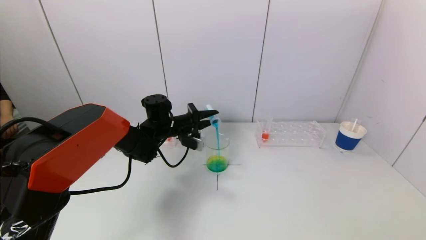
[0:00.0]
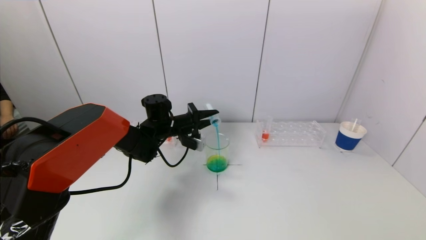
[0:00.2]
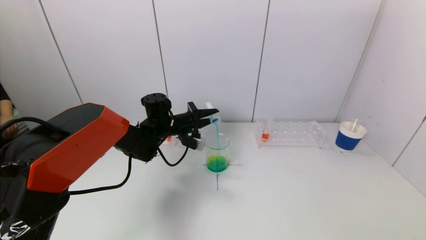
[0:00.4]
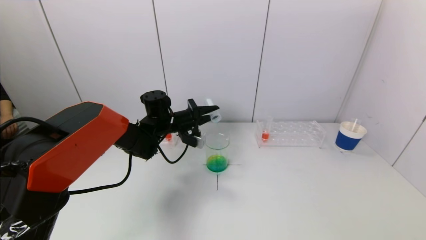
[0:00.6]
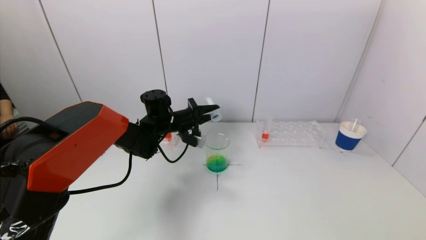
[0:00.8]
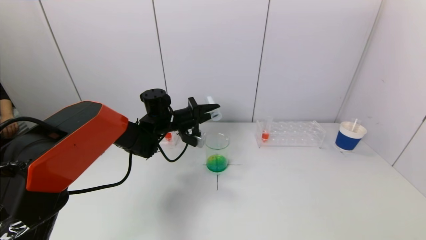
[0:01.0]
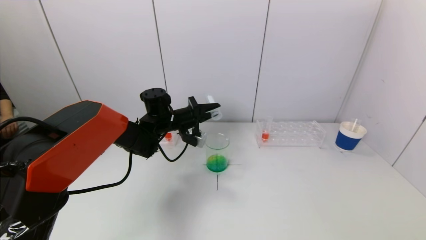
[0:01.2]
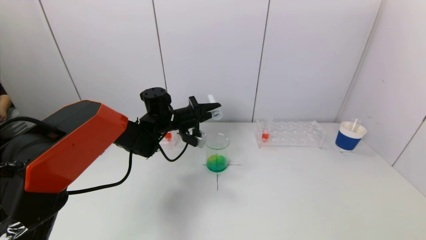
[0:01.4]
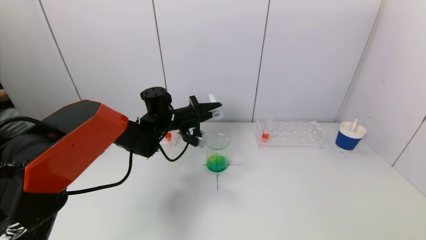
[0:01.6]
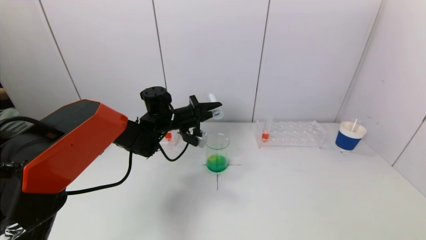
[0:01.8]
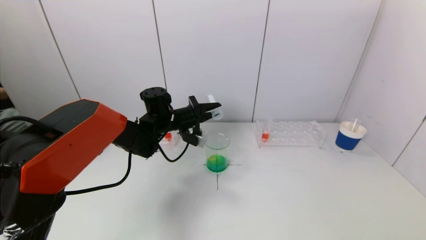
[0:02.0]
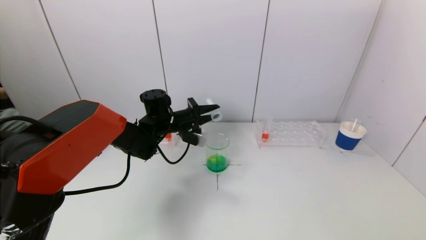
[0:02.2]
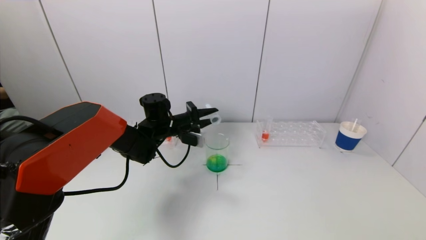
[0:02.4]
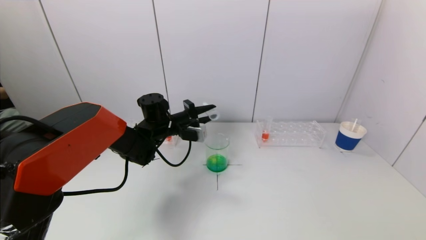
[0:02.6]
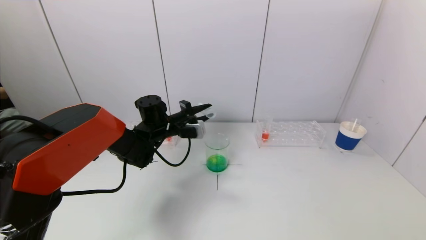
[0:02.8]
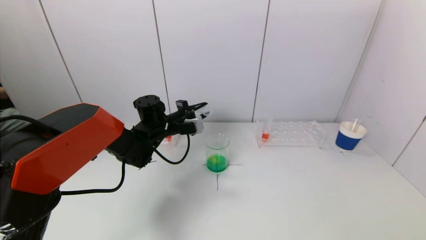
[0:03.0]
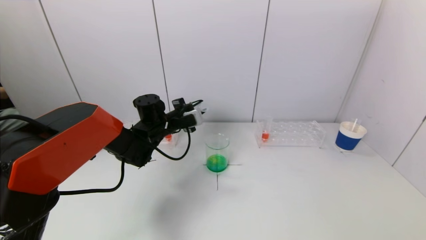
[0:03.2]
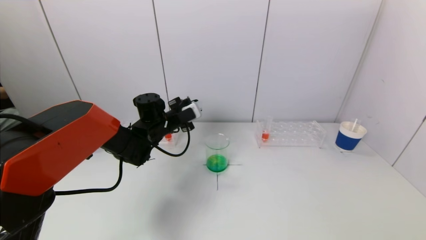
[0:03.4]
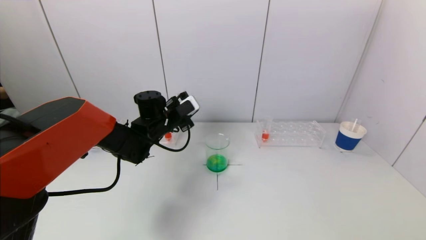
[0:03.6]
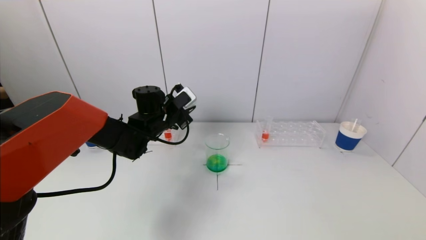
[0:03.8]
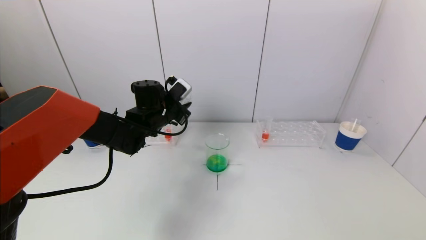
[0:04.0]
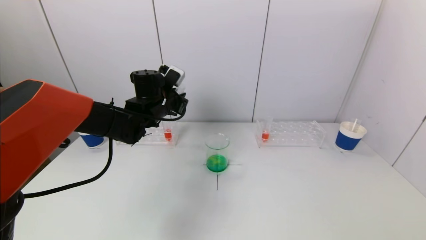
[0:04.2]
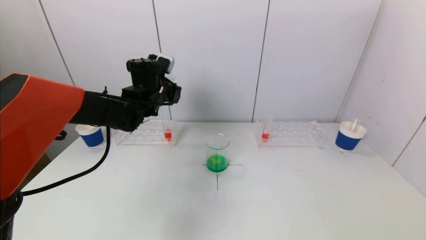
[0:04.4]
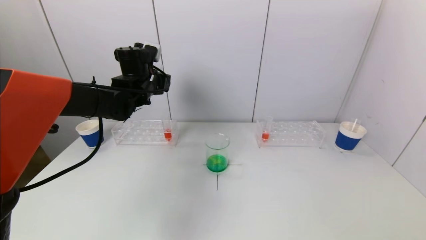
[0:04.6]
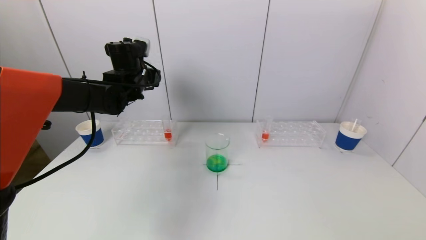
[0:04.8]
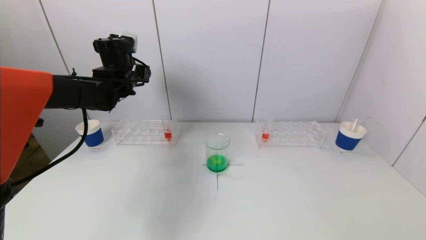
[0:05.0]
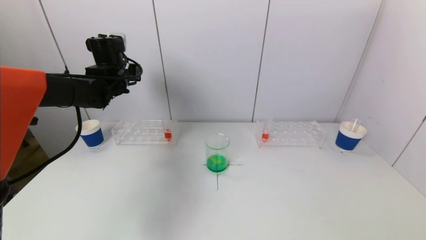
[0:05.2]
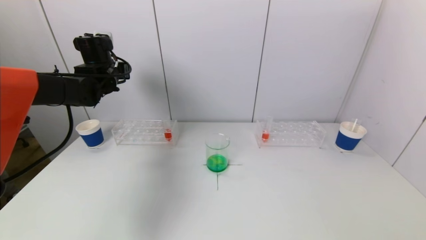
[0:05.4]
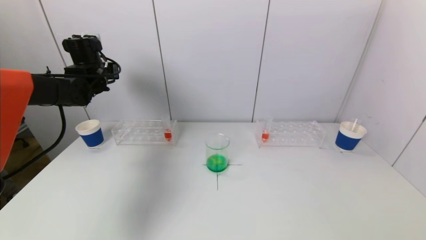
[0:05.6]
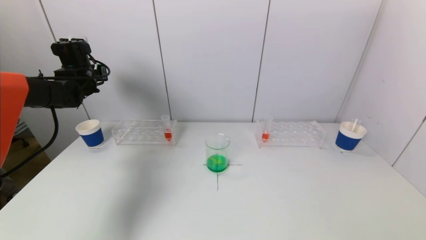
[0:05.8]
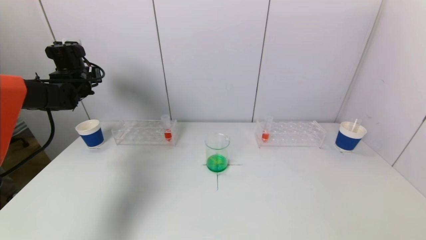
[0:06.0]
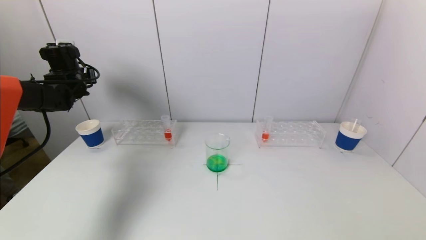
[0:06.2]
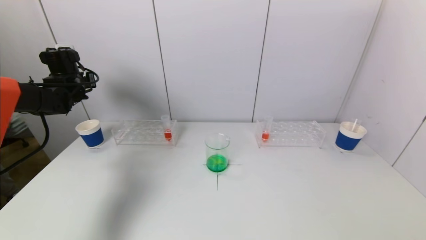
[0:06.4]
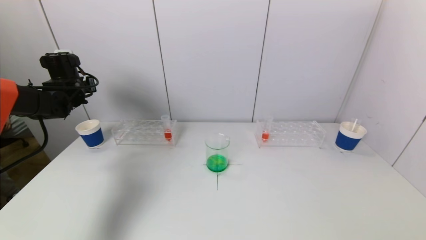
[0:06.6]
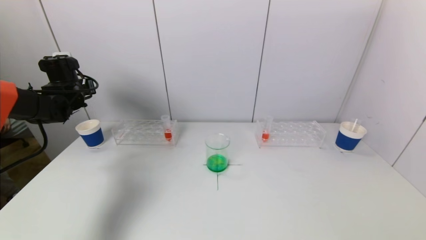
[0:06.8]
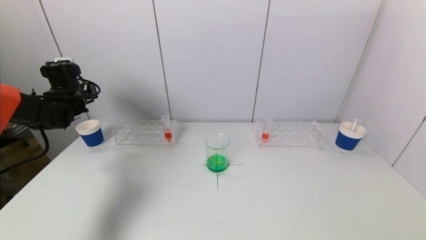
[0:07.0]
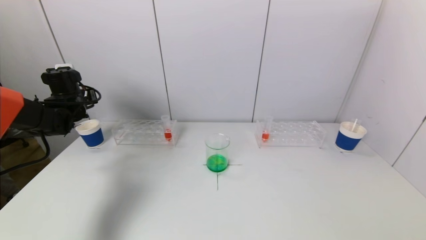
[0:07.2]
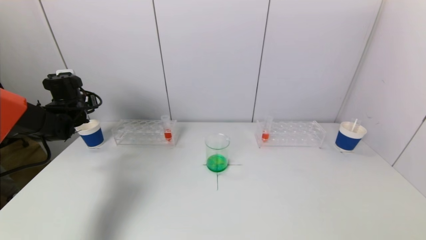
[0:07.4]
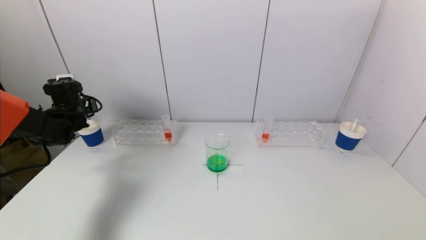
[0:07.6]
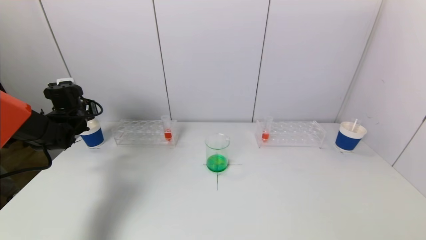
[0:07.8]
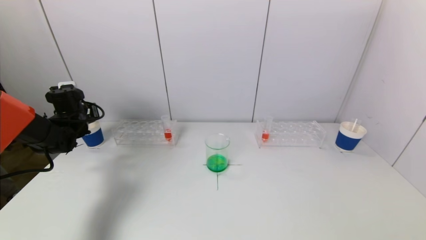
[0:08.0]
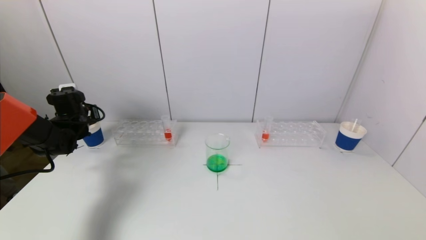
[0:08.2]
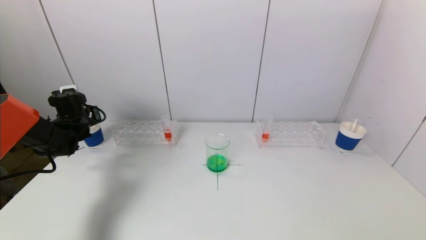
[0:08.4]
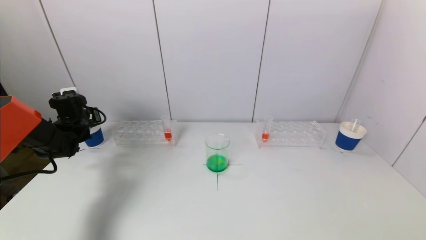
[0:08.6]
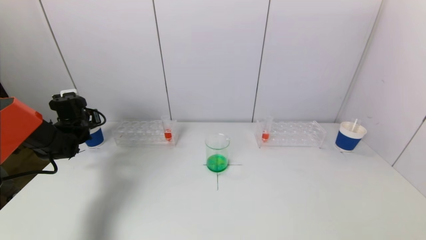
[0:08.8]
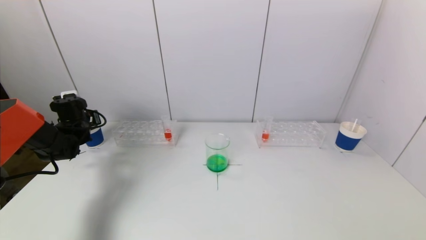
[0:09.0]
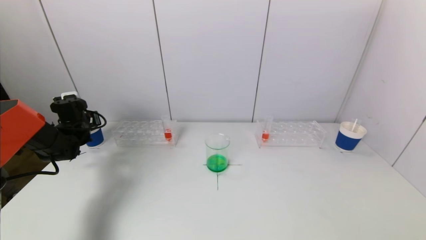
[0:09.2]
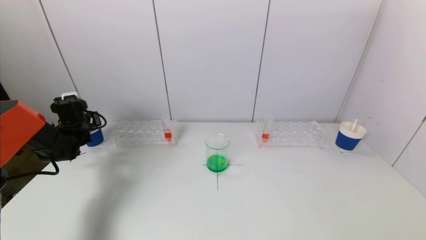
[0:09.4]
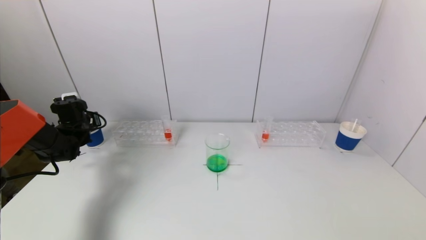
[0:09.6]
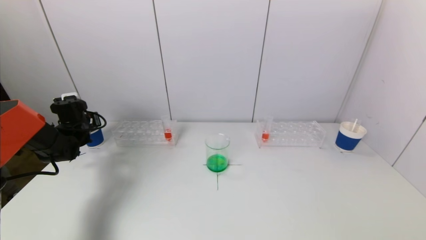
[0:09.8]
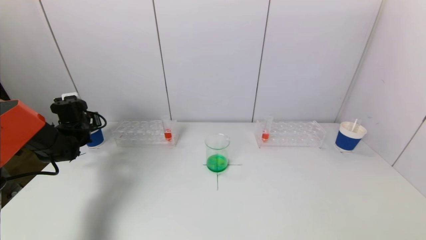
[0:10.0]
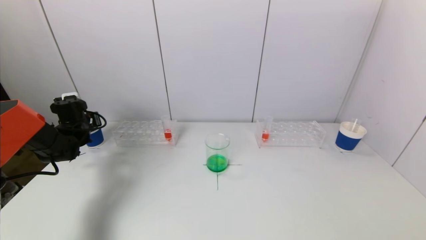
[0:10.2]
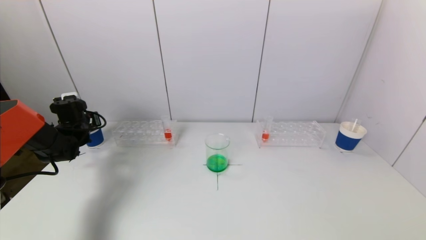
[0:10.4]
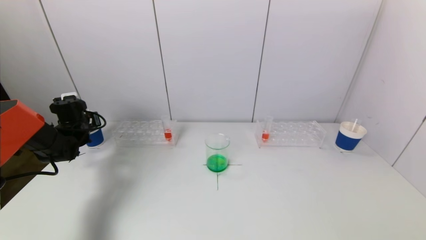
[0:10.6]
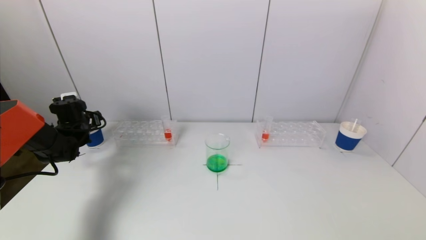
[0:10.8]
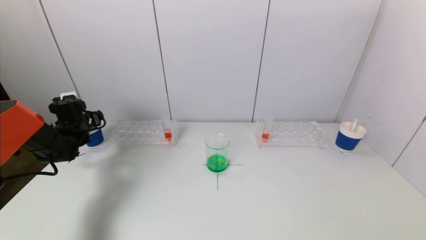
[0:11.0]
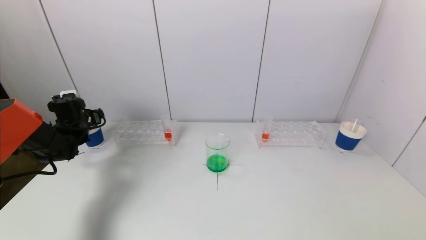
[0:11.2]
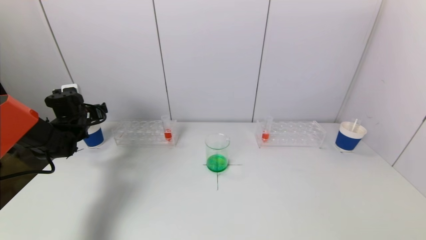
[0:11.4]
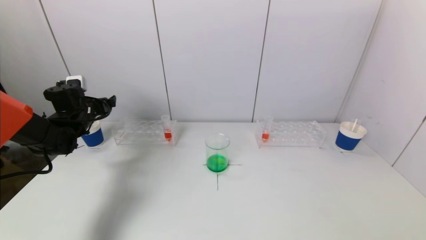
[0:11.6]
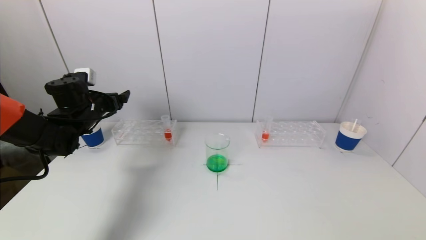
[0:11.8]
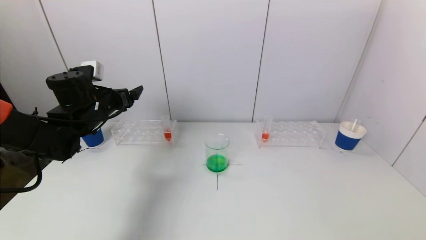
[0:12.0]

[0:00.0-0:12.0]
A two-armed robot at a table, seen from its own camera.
Task of the whole recording: pick up a test tube with pigment on left test tube rack and a test tube with pigment on right test tube rack by grippers and pour them into the beaker.
Step, 0:02.0 to 0:10.6: Place the test tube into the paper cup with the left gripper.
0:00.0 to 0:01.6: There are only small adjustments of the grippers.
0:03.0 to 0:04.4: The left gripper moves upward, about 10 cm.
0:04.4 to 0:06.0: The left gripper moves to the left, about 20 cm.
0:06.0 to 0:07.6: The left gripper moves downward, approximately 10 cm.
0:07.6 to 0:09.0: The grippers make only small movements.
0:09.0 to 0:10.4: The two grippers keep their place.
0:10.4 to 0:12.0: The left gripper heads to the right, upward and backward, covering some 15 cm, and opens its fingers.

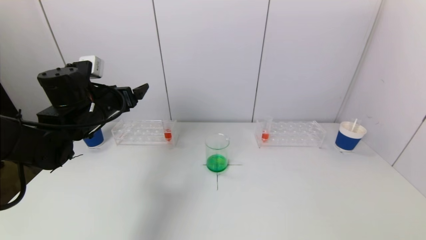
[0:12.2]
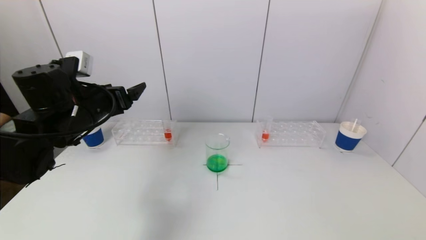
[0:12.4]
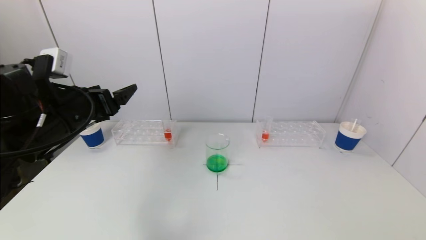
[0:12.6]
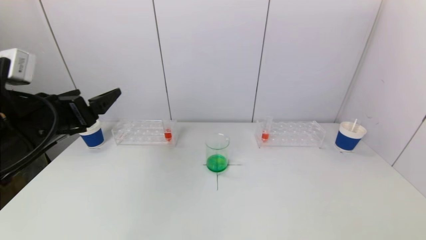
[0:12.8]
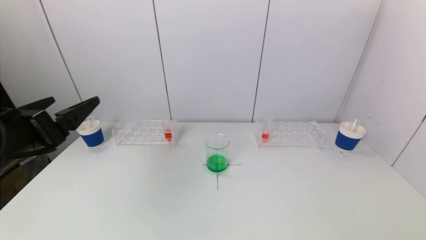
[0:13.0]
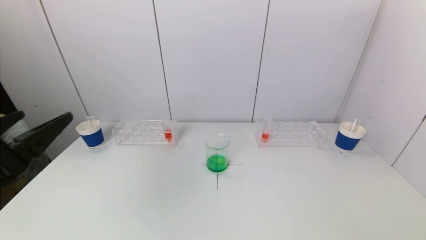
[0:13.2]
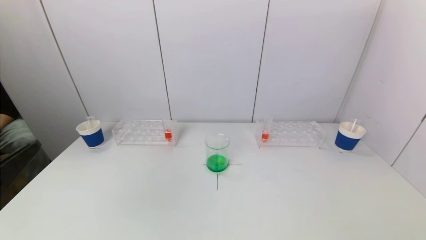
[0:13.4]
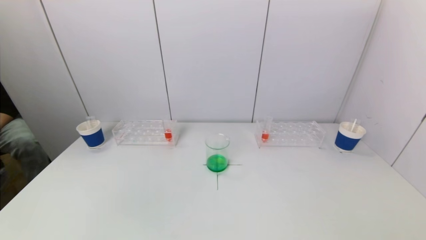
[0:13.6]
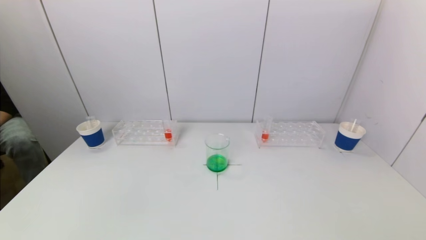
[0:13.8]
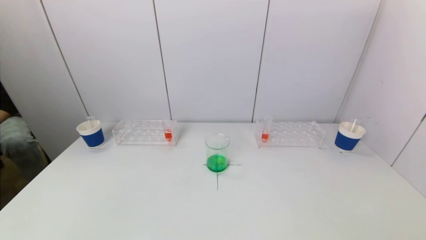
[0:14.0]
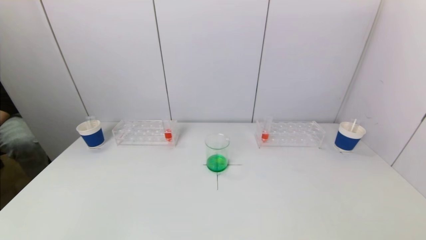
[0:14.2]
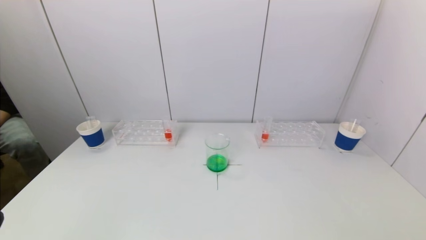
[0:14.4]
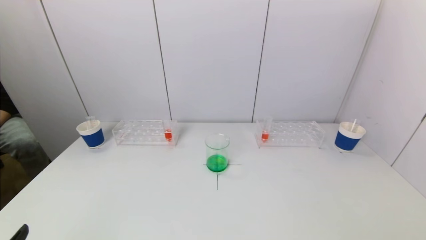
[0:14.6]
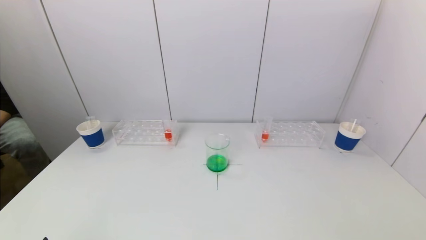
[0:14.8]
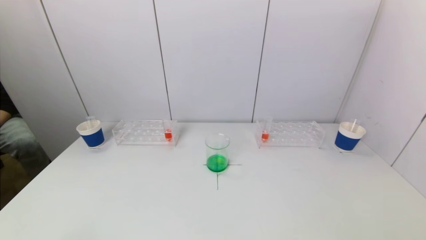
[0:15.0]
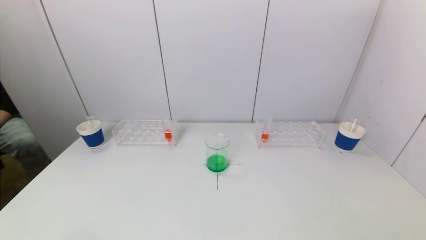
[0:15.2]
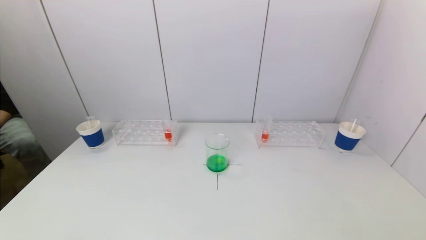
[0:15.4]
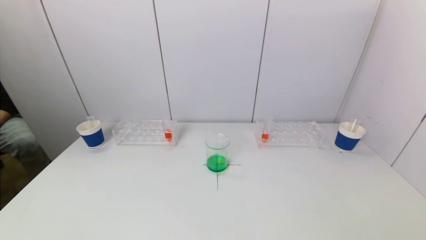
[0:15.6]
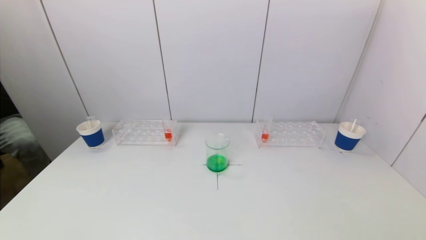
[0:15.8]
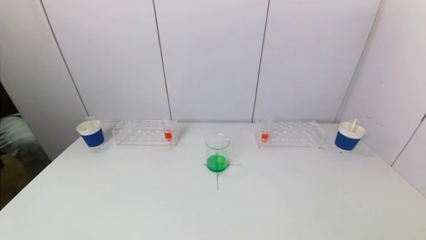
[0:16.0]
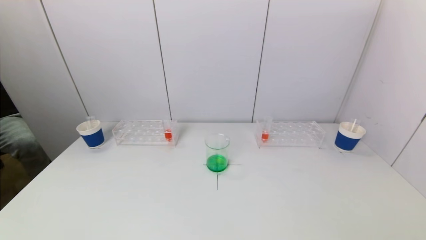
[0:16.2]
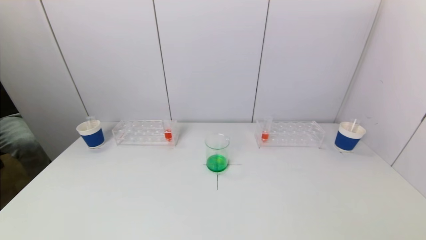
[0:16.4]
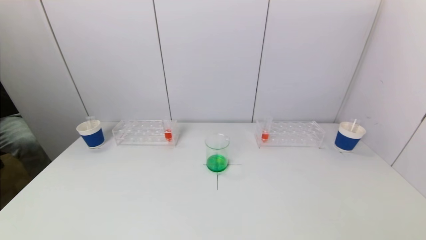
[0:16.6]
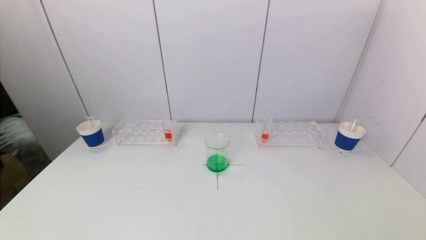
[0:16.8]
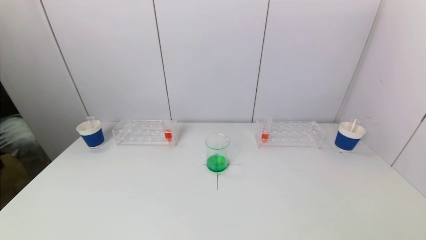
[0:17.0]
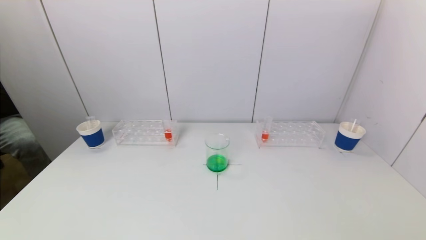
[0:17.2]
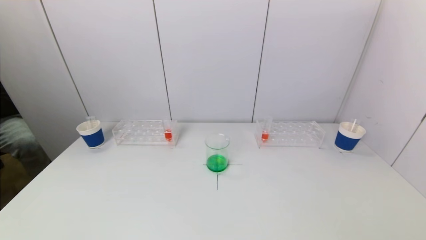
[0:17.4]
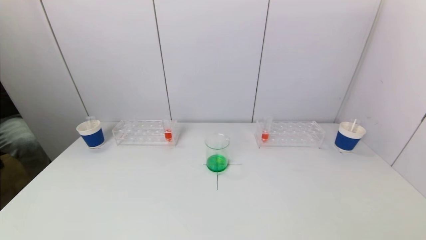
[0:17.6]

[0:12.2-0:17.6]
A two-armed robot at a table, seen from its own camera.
Task of the whole recording: pick up a test tube with pigment on left test tube rack and a test tube with pigment on right test tube rack by grippers and pour them into the beaker.
0:12.2 to 0:13.6: The left gripper is displaced backward by about 30 cm.
0:16.2 to 0:17.6: Both grippers stay about where they are.
